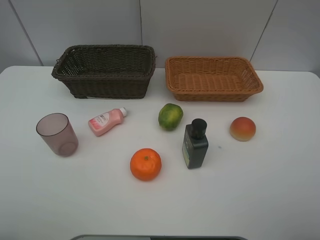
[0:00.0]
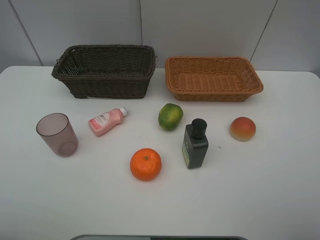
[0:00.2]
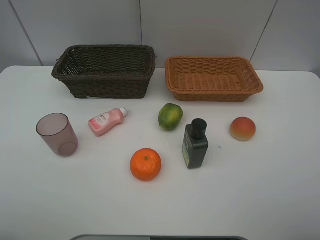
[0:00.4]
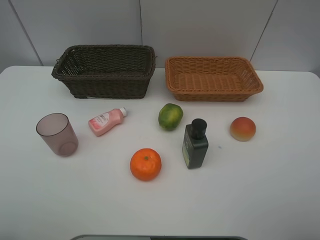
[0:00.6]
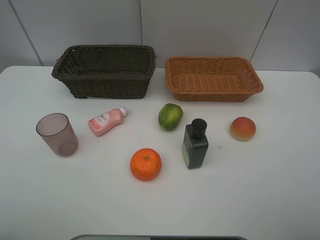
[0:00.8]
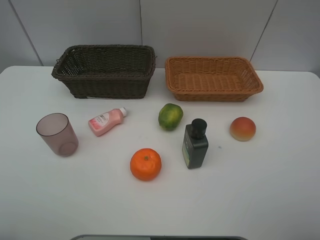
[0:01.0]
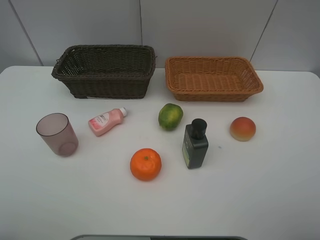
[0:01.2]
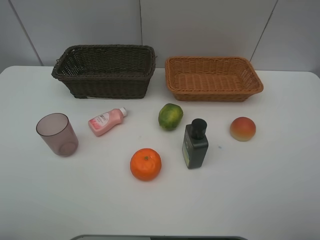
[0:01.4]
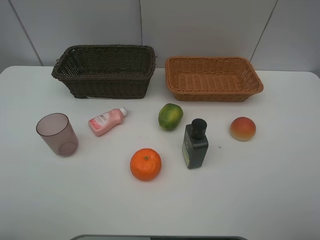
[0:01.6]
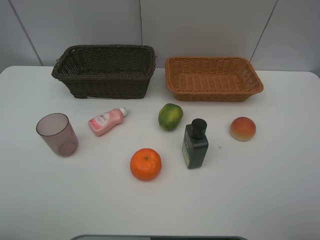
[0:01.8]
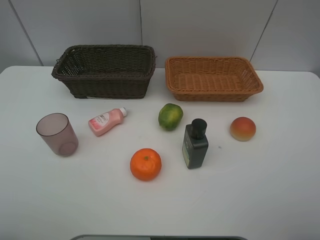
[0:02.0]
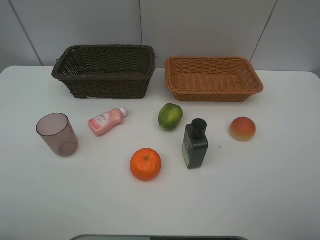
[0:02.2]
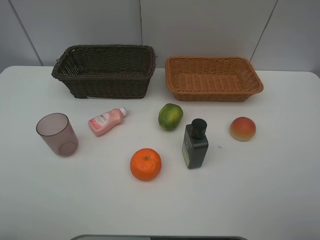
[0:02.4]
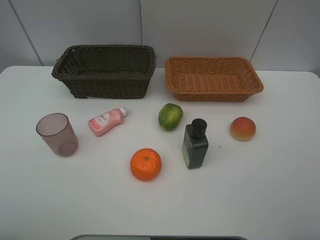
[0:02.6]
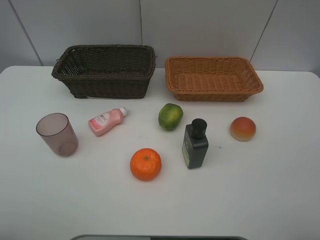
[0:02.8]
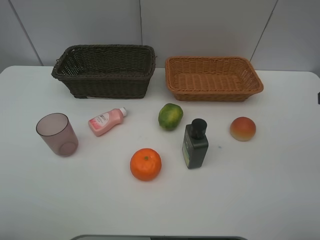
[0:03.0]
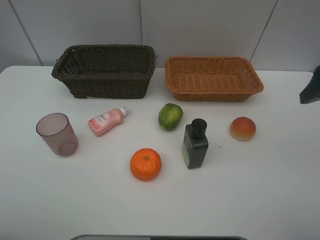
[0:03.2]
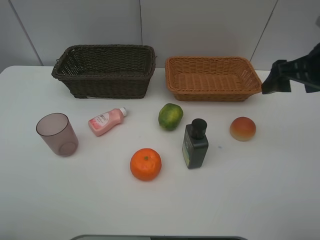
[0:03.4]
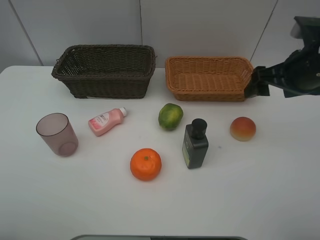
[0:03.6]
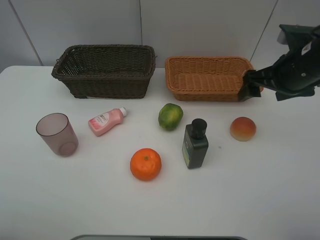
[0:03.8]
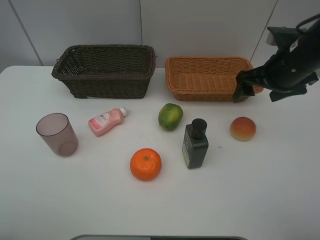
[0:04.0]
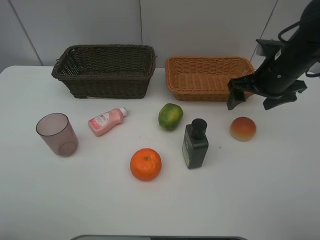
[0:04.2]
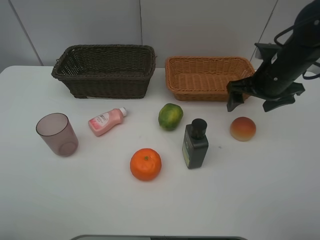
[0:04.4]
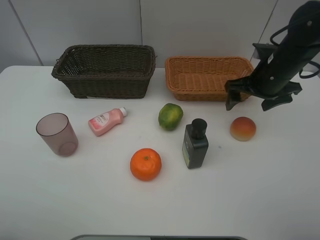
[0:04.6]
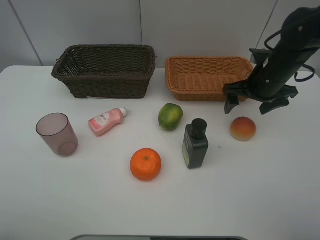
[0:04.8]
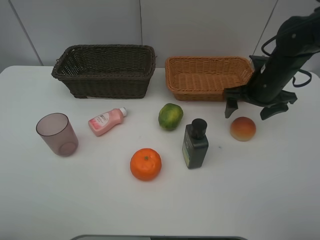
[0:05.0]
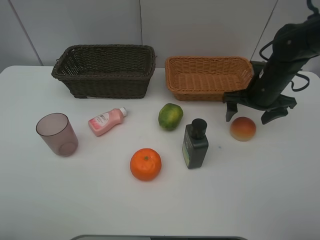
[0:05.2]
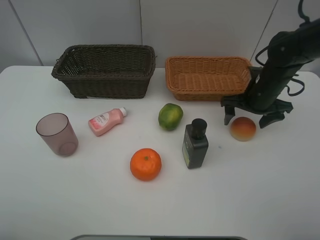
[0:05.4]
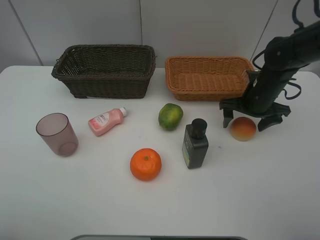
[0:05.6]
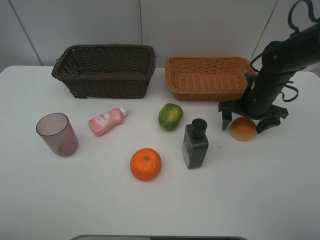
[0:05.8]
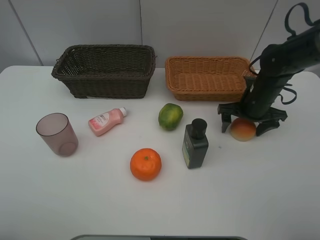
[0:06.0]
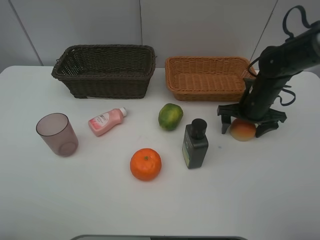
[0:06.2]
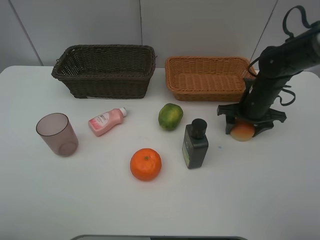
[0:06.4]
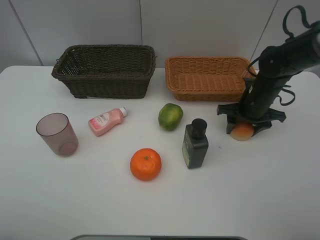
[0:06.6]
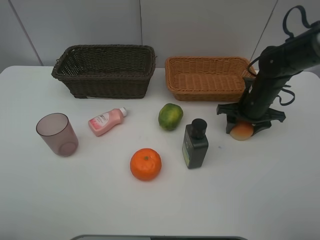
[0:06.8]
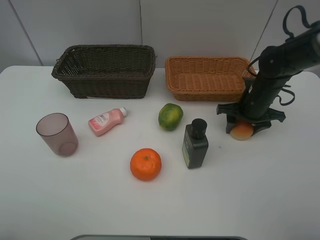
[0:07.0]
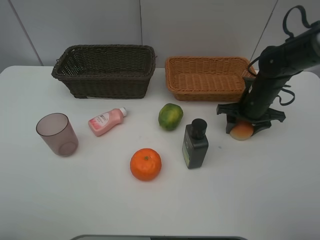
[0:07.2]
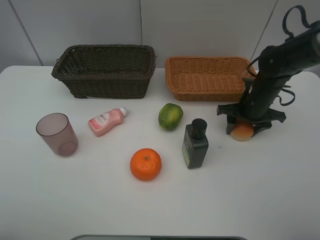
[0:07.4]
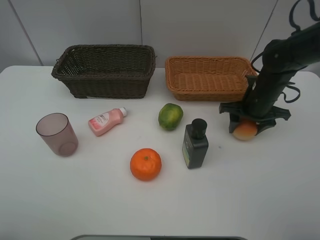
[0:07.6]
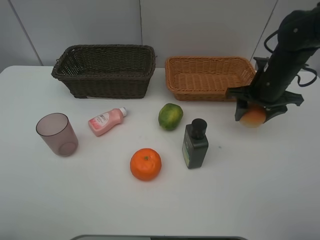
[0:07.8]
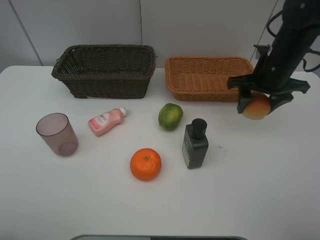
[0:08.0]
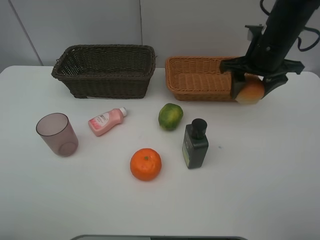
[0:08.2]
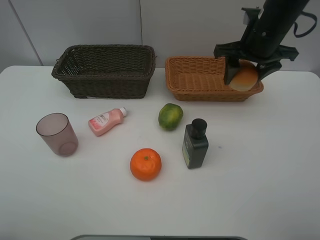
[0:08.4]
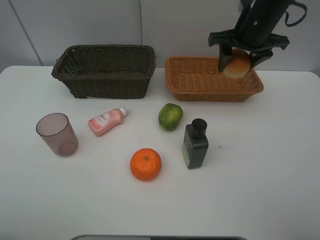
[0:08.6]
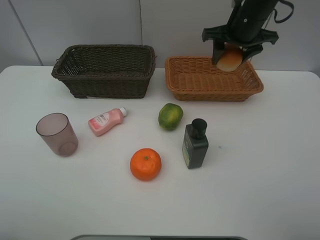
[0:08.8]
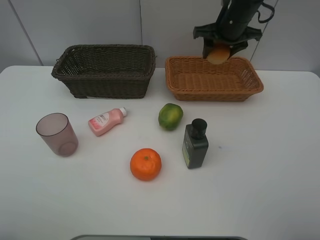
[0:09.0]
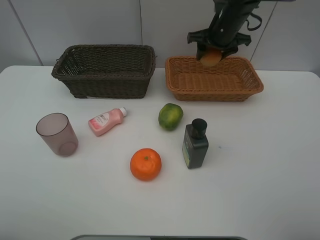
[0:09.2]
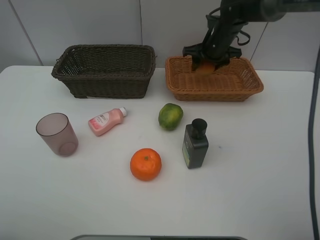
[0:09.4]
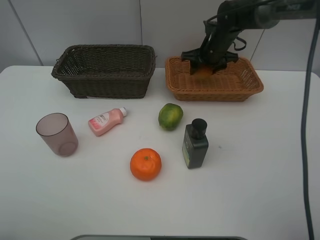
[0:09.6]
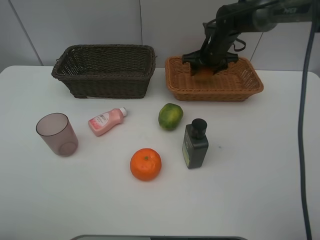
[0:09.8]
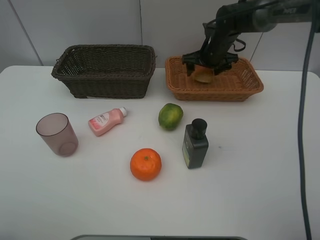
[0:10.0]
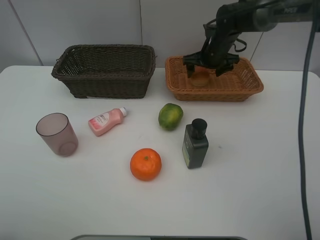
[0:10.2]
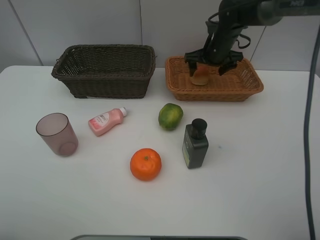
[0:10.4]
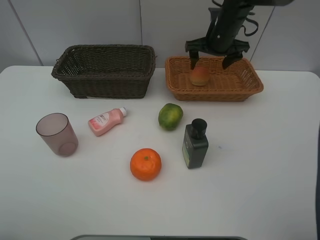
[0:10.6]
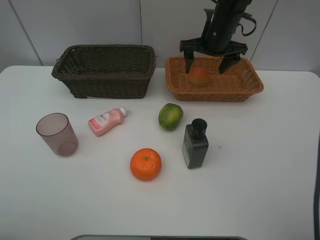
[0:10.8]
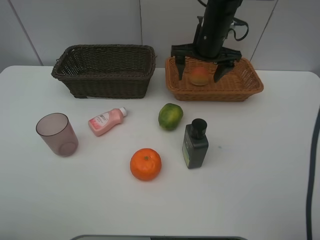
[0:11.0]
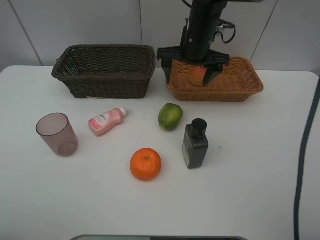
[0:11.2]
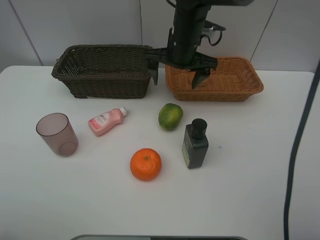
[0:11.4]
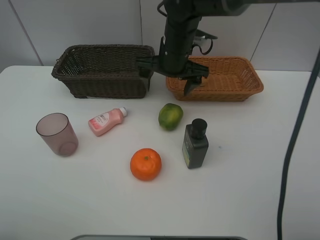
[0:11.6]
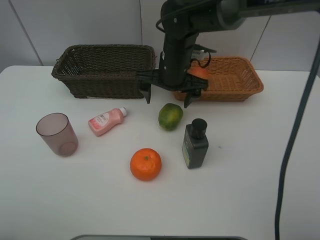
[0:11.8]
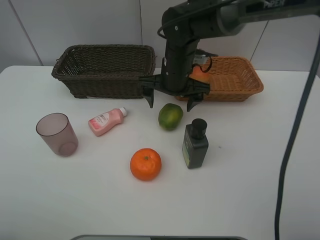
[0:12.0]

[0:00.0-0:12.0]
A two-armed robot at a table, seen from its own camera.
Task of the whole recording: place multiple objects separately in different baskets.
0:00.0 to 0:01.6: Both grippers stay put.
0:03.0 to 0:04.4: The right gripper shifts some 20 cm forward, downward and to the left.
0:04.4 to 0:06.0: The right gripper travels downward by roughly 10 cm.
0:06.0 to 0:07.6: The right gripper closes up.
0:07.6 to 0:09.0: The right gripper moves forward, upward and to the left, roughly 20 cm.
0:09.0 to 0:10.4: The right gripper moves downward, roughly 5 cm, and opens up.
0:10.4 to 0:12.0: The right gripper travels to the left and backward by some 15 cm.

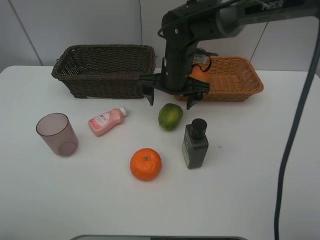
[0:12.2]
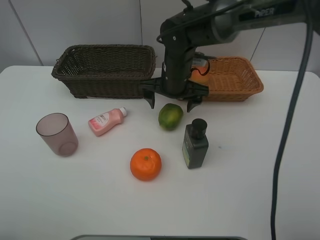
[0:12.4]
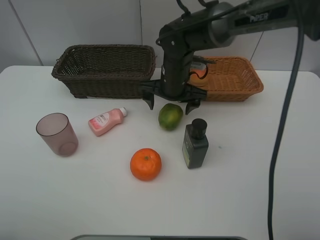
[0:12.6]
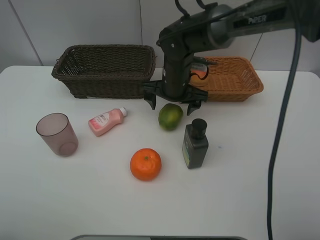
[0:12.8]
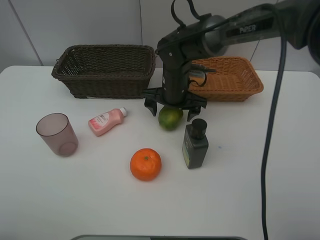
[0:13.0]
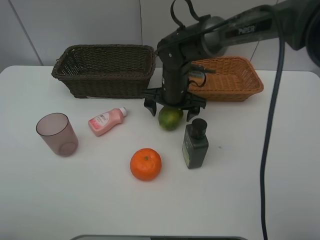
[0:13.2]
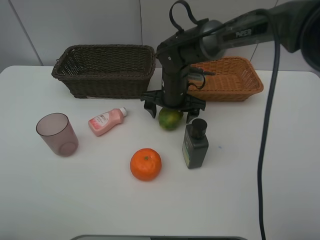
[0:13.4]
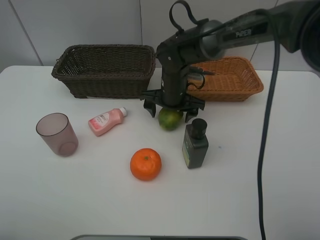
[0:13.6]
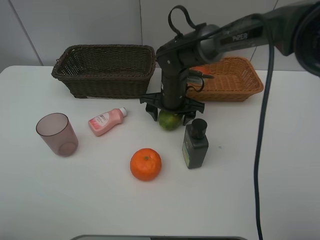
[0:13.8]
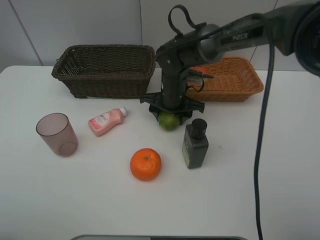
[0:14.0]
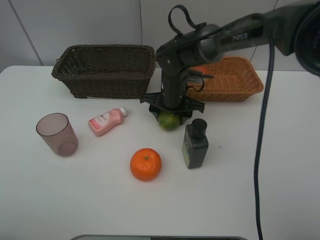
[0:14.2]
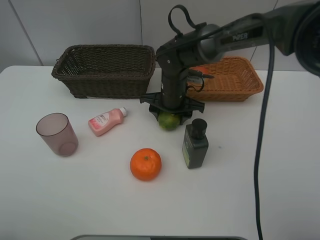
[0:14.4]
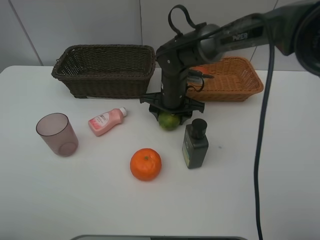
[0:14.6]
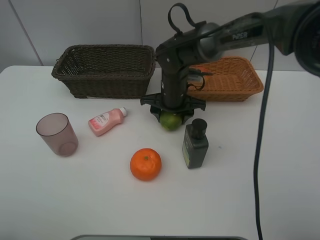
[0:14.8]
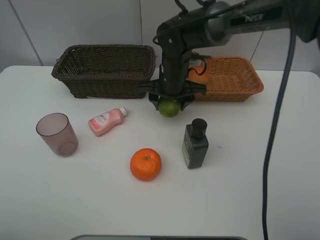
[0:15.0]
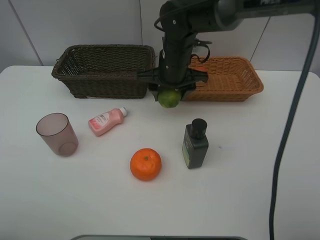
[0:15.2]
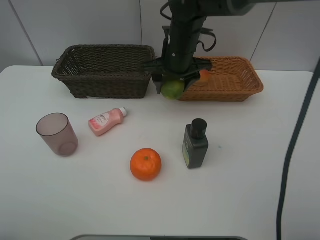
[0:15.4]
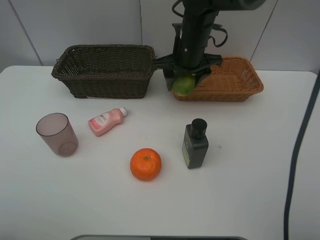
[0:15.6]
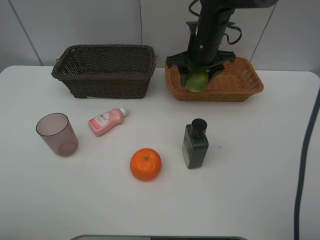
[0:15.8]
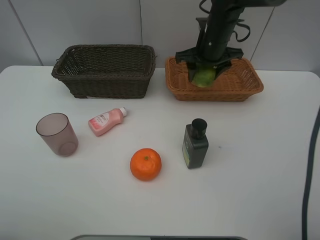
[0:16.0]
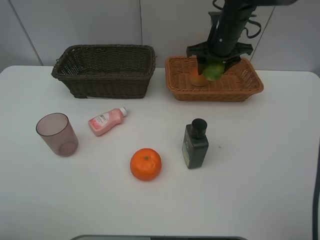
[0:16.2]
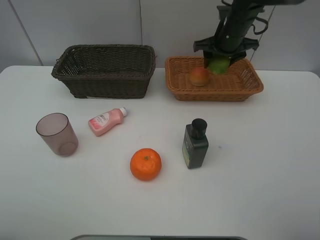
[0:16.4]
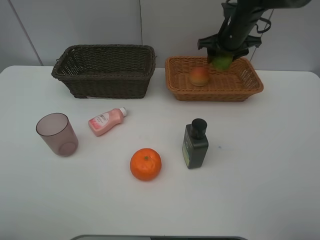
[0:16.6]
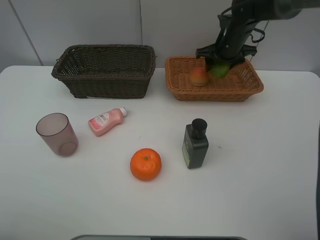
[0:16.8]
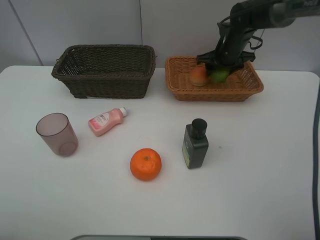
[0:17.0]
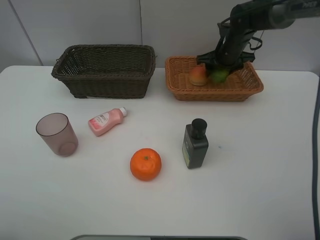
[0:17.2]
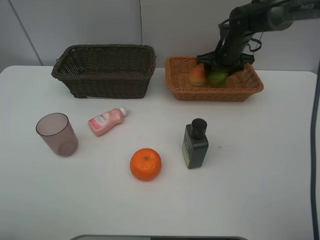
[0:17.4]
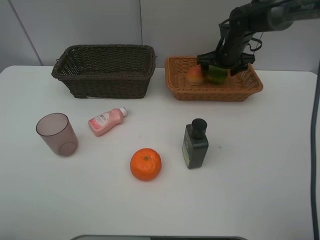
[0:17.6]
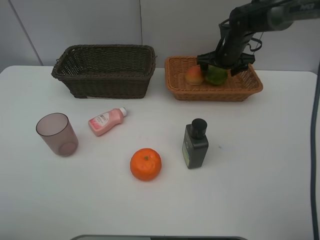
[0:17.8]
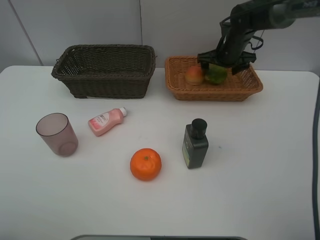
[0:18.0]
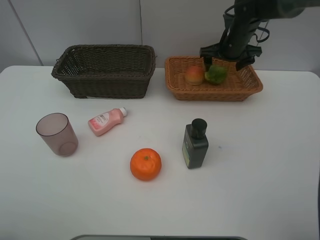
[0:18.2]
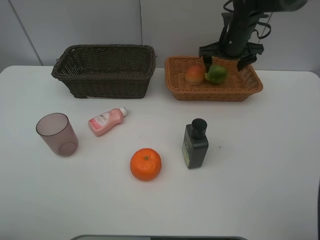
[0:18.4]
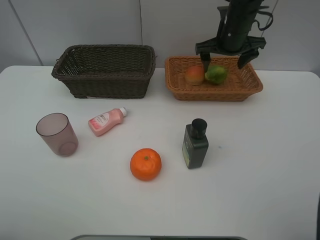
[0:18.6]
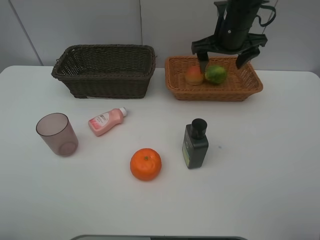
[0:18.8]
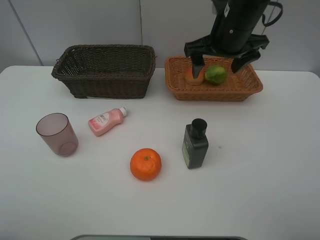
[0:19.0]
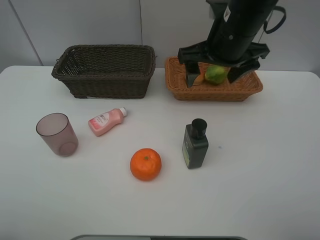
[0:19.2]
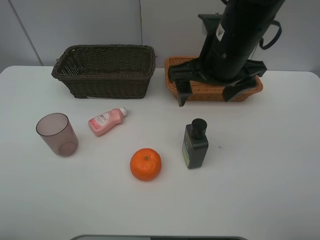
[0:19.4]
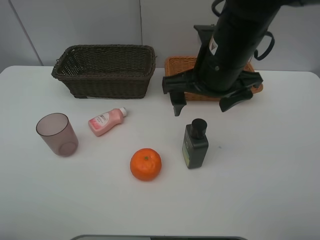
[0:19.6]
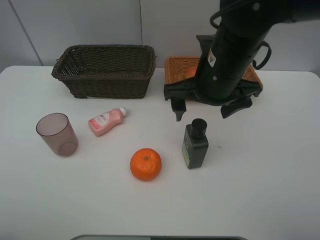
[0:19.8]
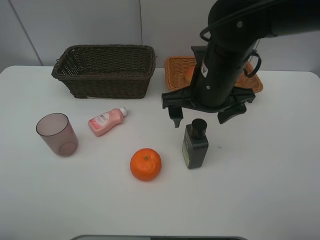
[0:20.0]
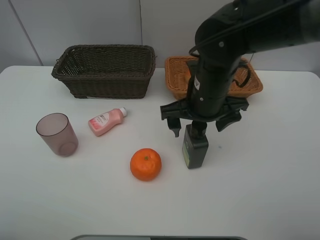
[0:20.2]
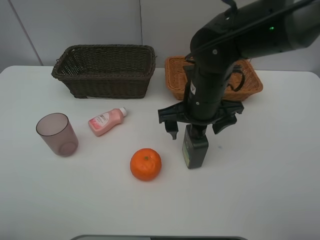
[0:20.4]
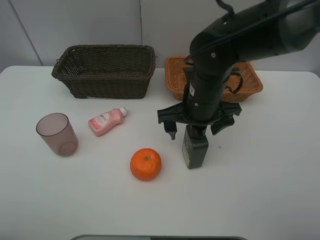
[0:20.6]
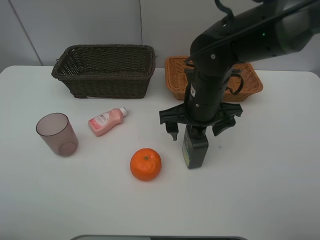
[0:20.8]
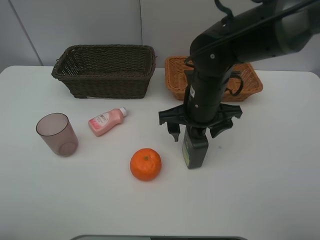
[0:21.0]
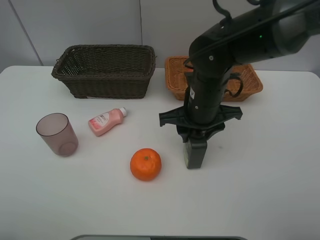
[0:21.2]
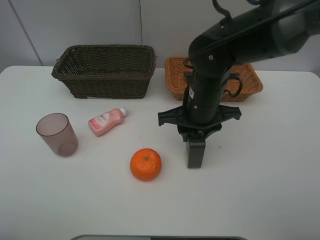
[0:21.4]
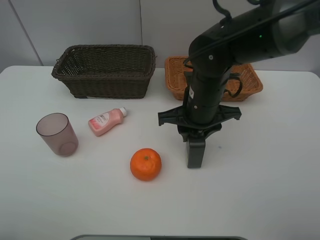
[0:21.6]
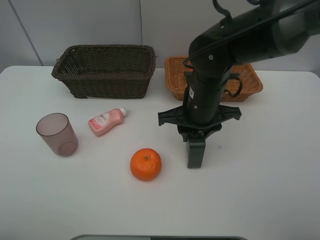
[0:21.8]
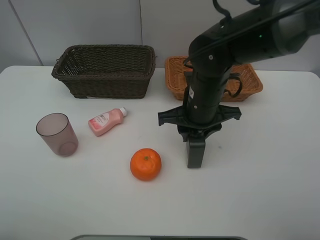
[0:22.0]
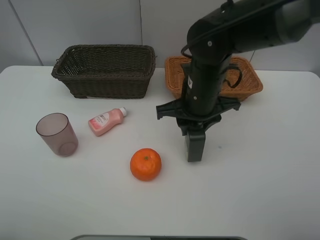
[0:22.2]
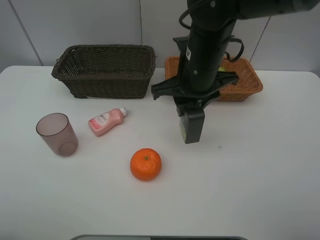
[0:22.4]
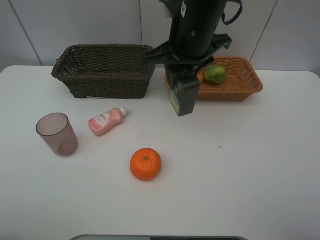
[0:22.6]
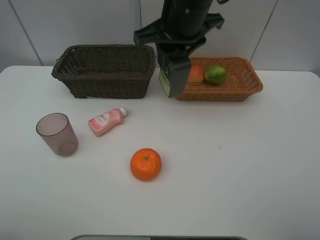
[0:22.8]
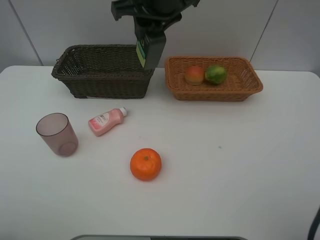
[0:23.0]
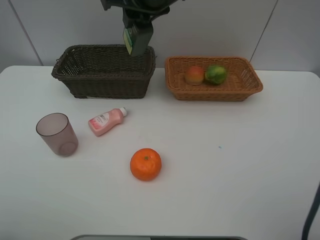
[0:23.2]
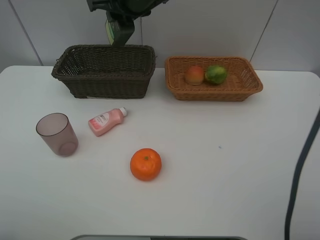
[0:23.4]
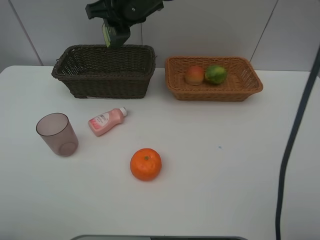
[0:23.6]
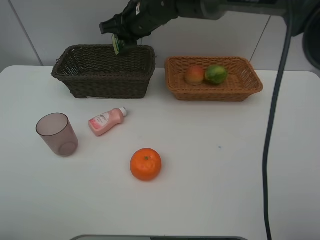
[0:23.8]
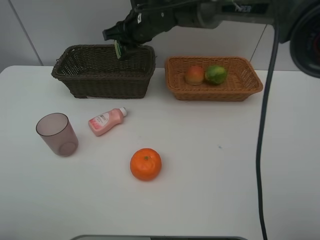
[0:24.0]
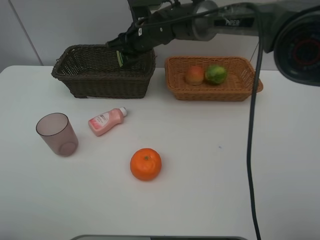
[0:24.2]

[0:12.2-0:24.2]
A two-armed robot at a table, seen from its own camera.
Task of the whole recording: place multiple objects separately in different baskets.
0:12.2 to 0:13.8: The right gripper goes roughly 5 cm downward, and closes its fingers.
0:13.8 to 0:15.2: The right gripper moves upward, about 10 cm.
0:15.2 to 0:16.6: The right gripper moves to the right and forward, about 20 cm.
0:16.6 to 0:18.2: The right gripper opens its fingers.
0:18.2 to 0:19.8: The right gripper shifts some 25 cm backward and to the left.
0:19.8 to 0:21.2: The right gripper travels downward by roughly 5 cm, and closes up.
0:21.2 to 0:22.6: The right gripper moves upward, approximately 10 cm.
0:22.6 to 0:24.2: The right gripper heads forward, downward and to the left, covering roughly 20 cm.
